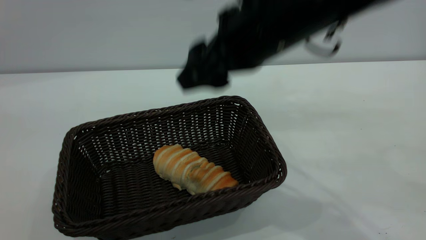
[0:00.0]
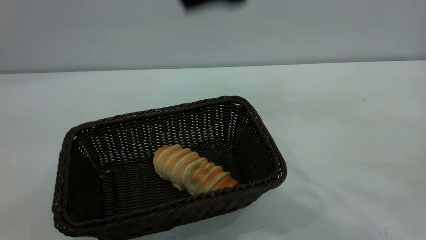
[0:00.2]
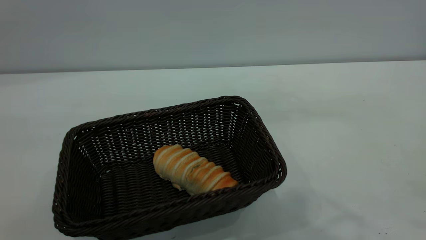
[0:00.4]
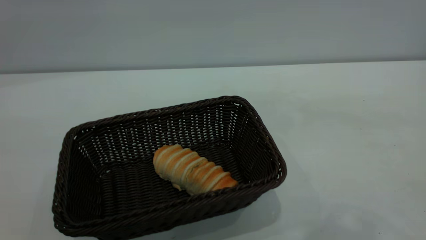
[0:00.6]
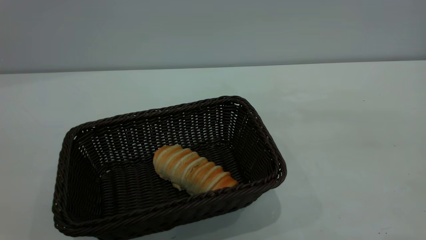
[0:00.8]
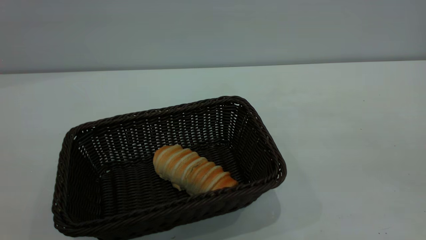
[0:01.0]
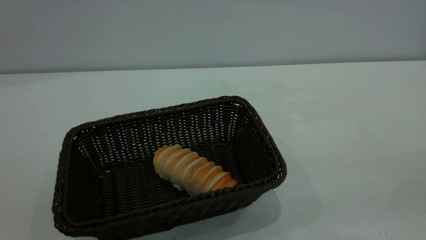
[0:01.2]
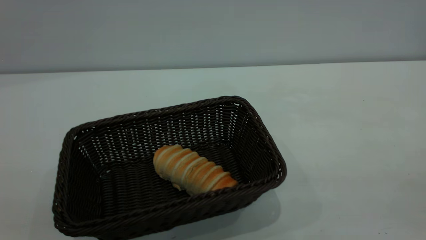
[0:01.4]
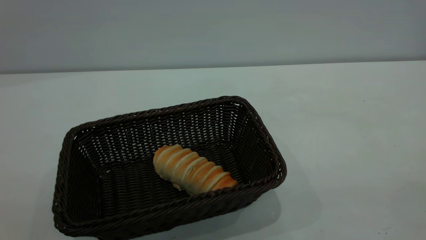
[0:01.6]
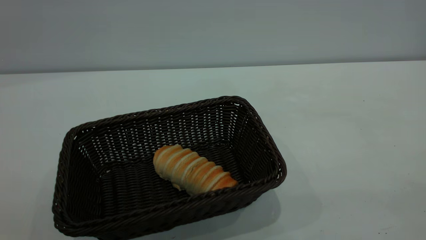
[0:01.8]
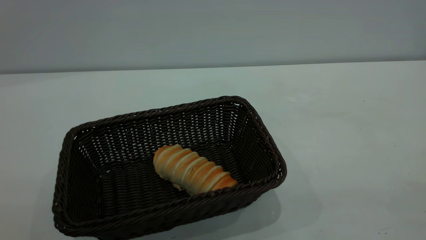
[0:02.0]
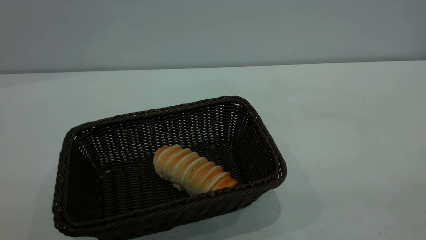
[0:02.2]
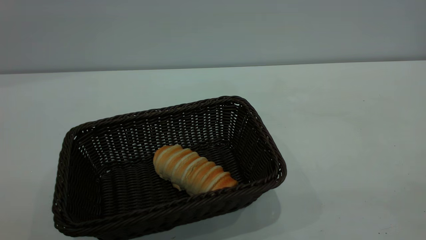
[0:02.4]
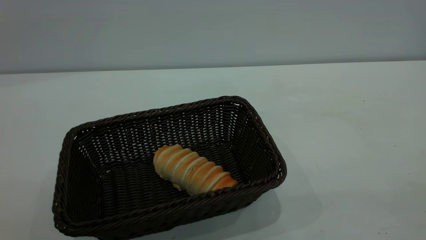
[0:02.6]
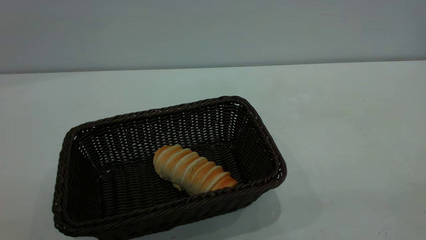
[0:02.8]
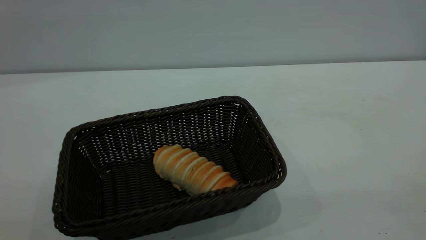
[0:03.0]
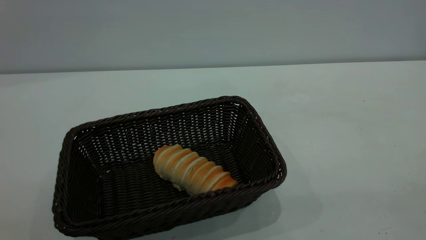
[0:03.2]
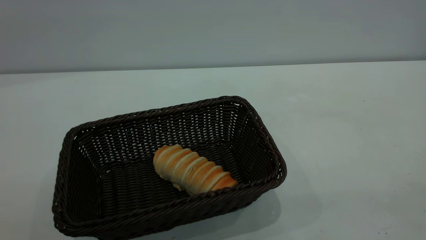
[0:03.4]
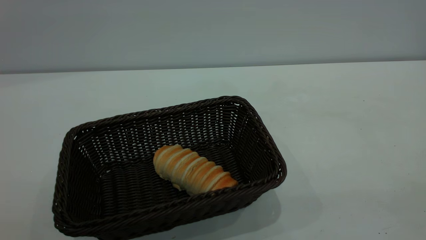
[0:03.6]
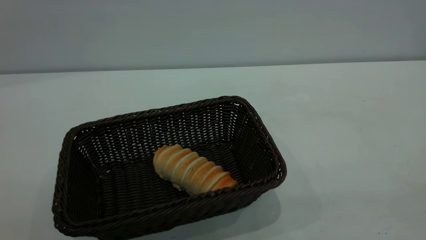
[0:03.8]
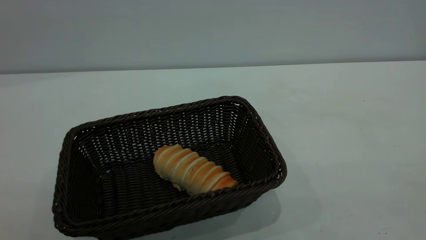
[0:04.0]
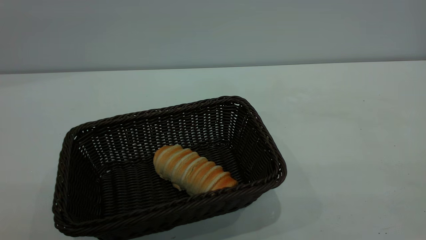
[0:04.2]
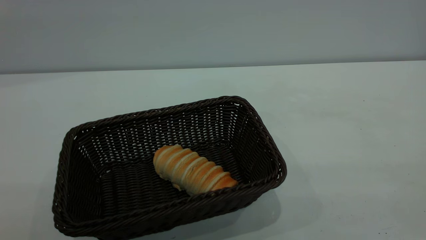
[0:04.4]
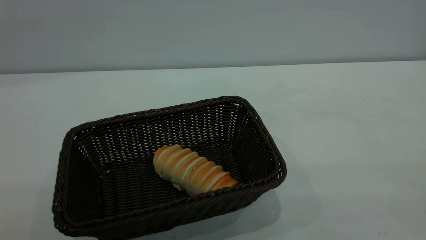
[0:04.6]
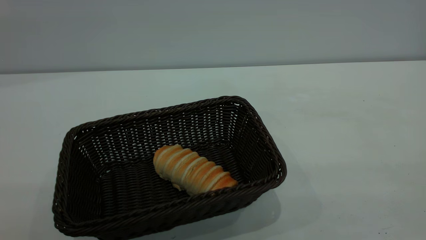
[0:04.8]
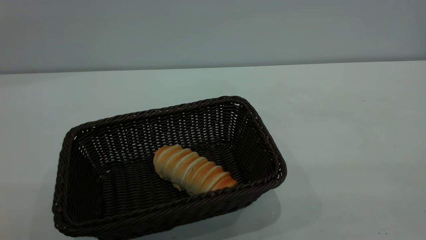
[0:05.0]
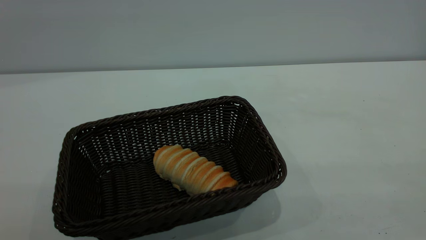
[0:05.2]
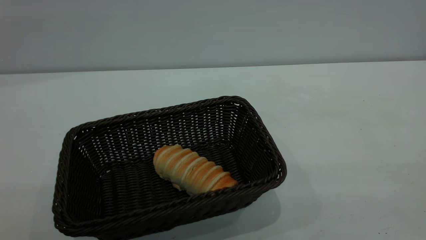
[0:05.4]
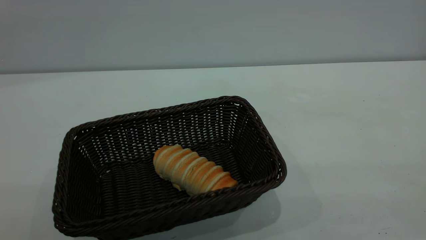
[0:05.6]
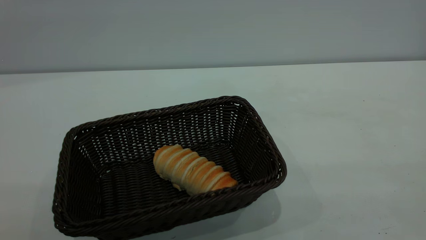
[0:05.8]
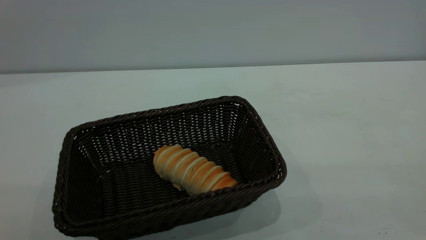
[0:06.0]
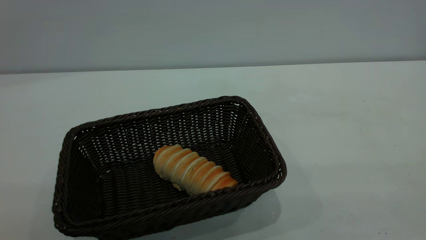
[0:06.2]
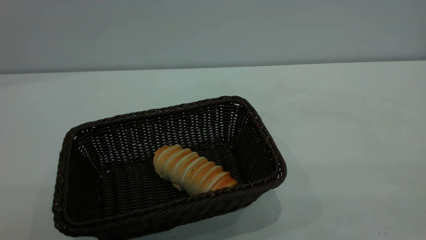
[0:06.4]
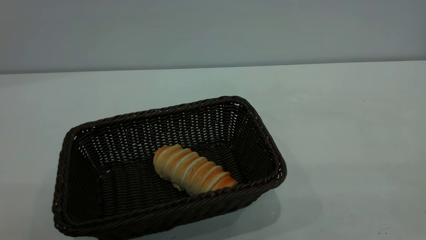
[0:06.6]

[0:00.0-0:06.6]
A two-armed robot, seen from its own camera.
Task of the whole recording: One hand grasps the black basket and places it in the middle of the table, while the other hand picks up the long bread and puts it into the black basket.
0.0 to 1.6 s: The right gripper moves backward and to the right, some 35 cm, while the left gripper is displaced backward and downward by some 10 cm.
5.0 to 6.6 s: The two grippers keep their place.

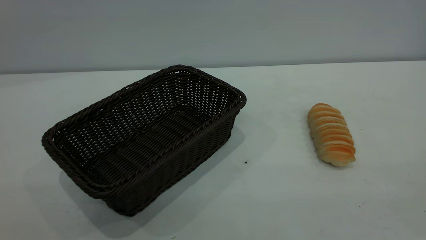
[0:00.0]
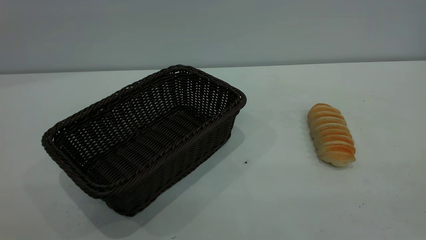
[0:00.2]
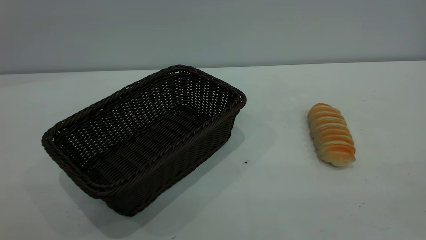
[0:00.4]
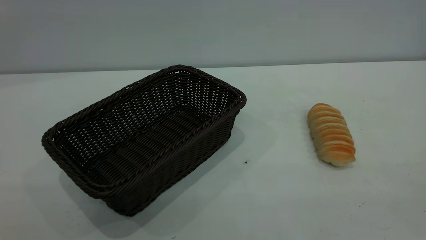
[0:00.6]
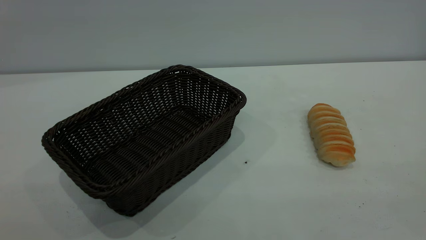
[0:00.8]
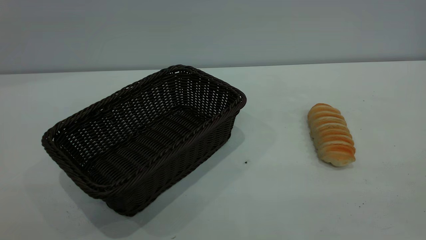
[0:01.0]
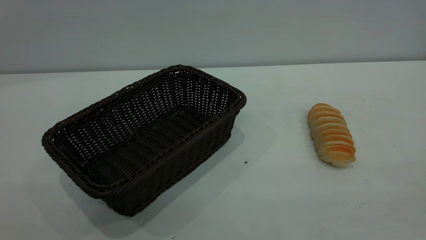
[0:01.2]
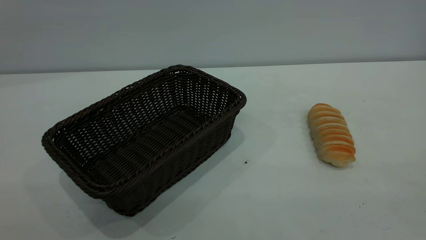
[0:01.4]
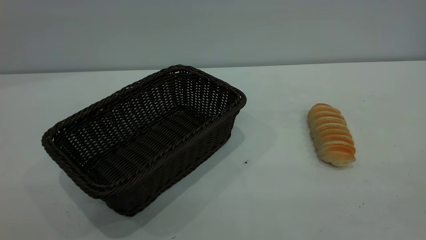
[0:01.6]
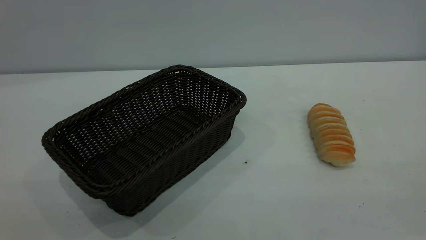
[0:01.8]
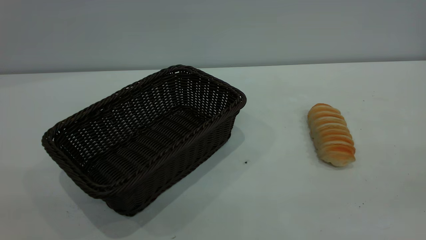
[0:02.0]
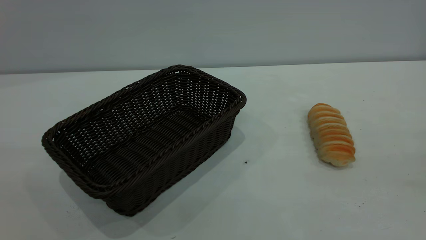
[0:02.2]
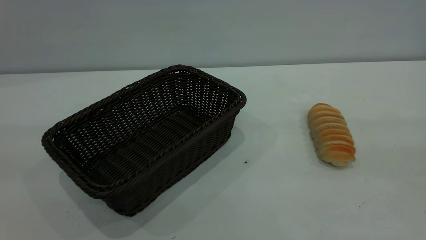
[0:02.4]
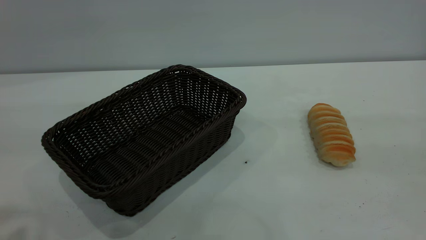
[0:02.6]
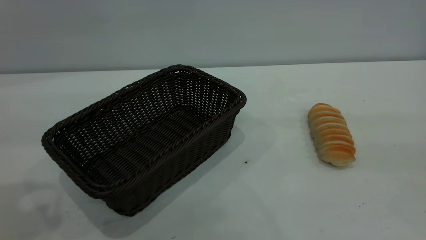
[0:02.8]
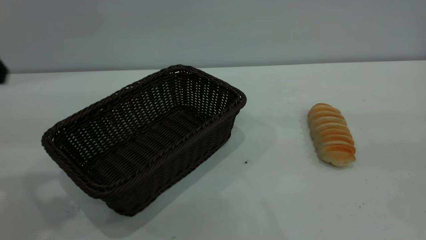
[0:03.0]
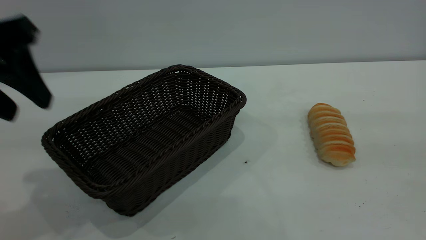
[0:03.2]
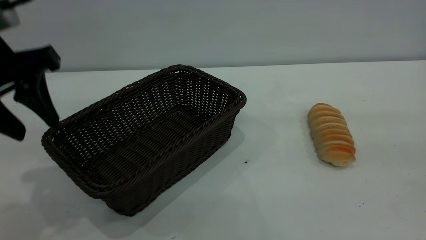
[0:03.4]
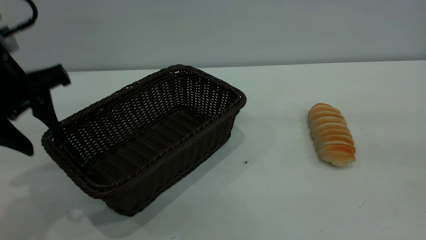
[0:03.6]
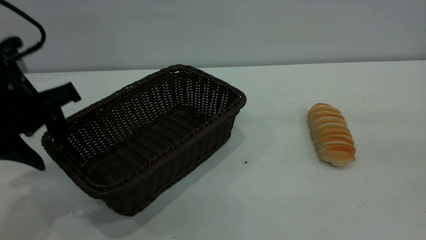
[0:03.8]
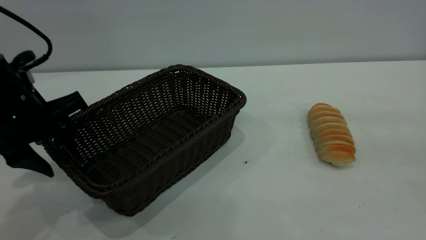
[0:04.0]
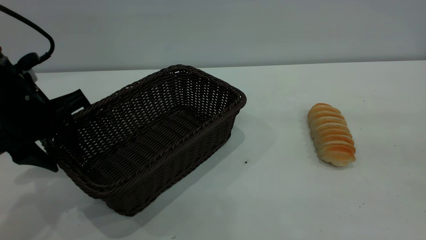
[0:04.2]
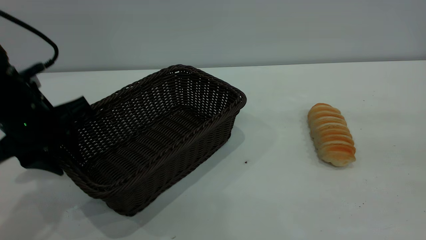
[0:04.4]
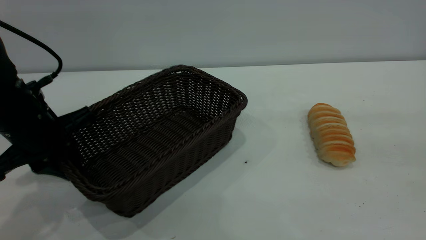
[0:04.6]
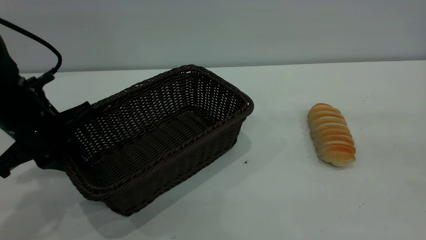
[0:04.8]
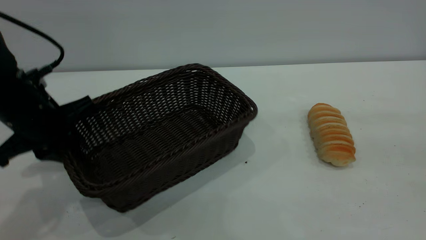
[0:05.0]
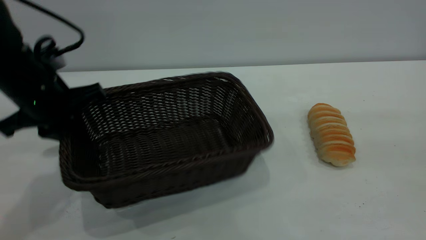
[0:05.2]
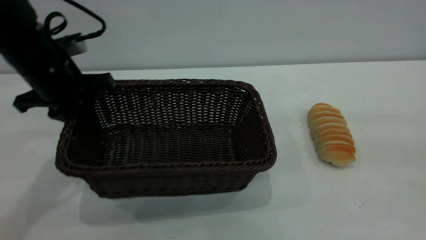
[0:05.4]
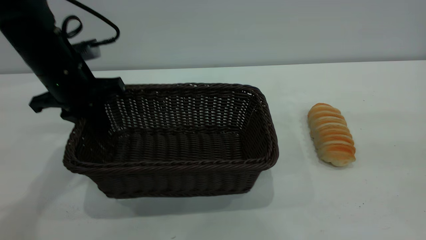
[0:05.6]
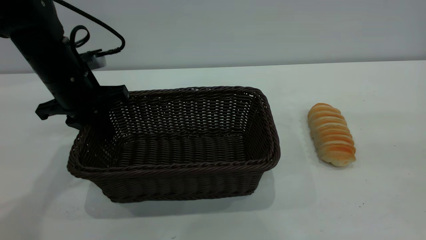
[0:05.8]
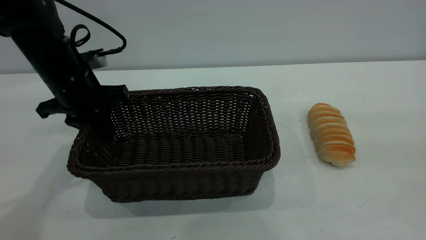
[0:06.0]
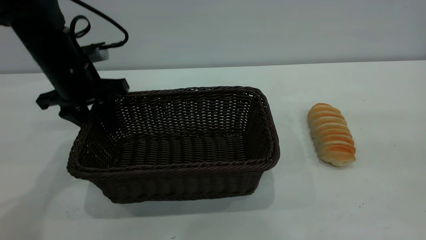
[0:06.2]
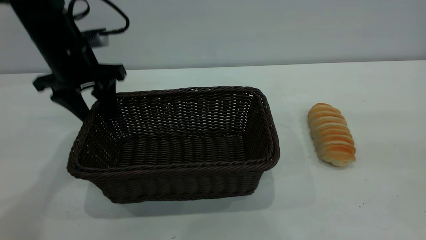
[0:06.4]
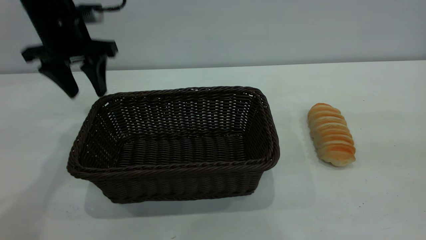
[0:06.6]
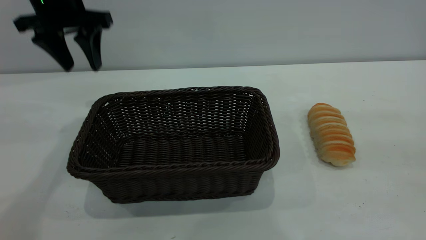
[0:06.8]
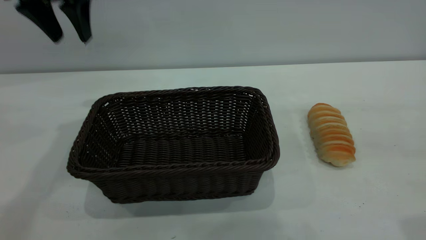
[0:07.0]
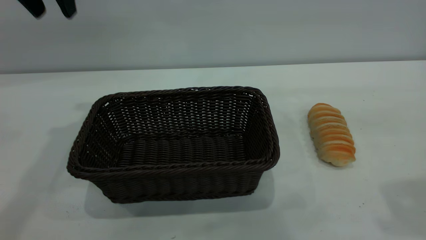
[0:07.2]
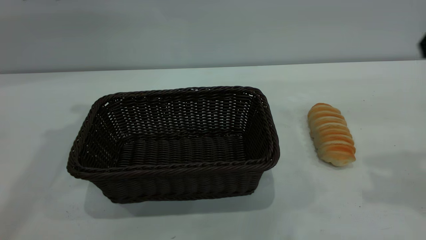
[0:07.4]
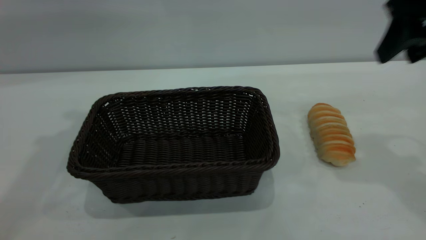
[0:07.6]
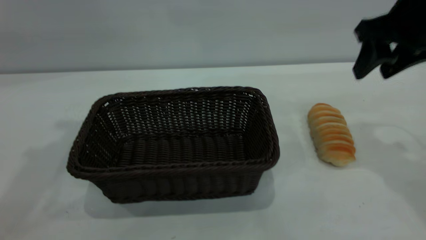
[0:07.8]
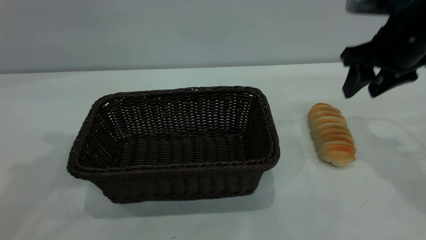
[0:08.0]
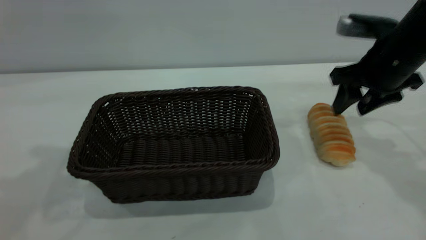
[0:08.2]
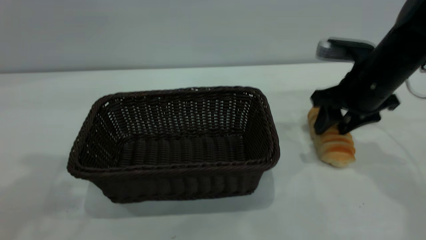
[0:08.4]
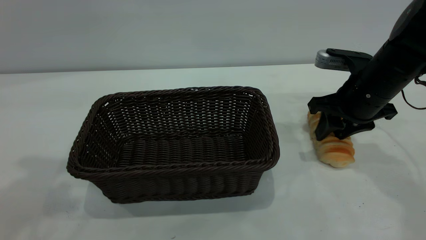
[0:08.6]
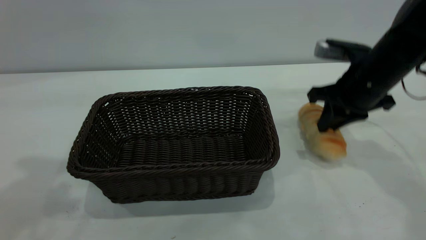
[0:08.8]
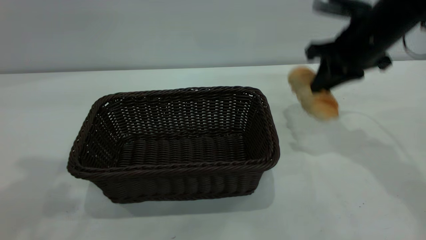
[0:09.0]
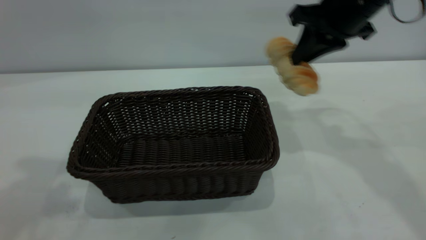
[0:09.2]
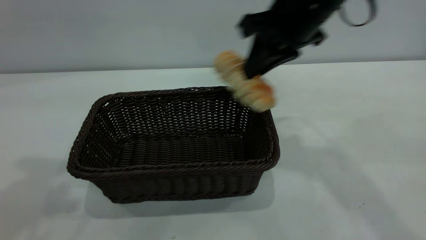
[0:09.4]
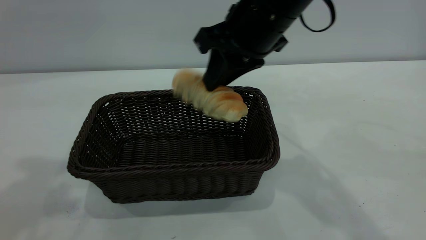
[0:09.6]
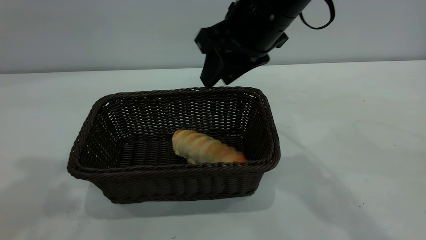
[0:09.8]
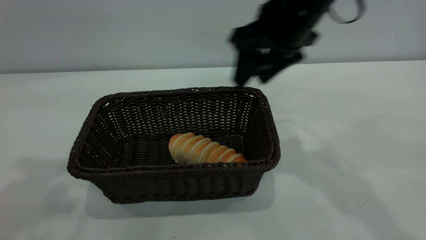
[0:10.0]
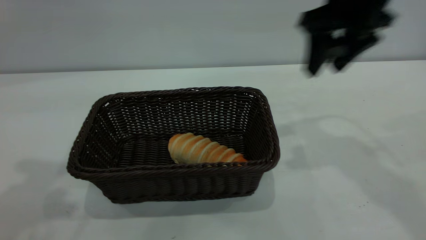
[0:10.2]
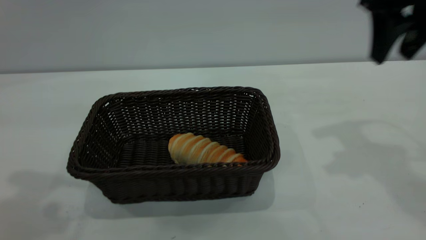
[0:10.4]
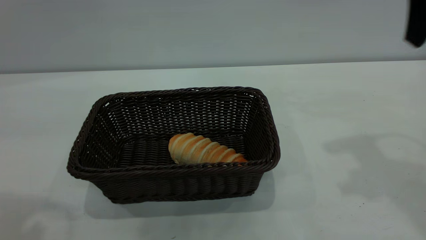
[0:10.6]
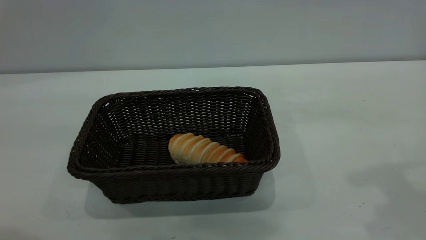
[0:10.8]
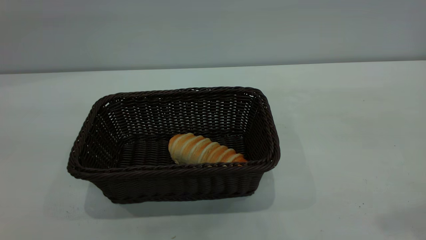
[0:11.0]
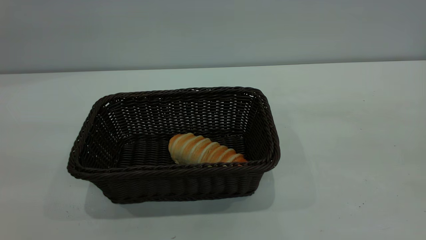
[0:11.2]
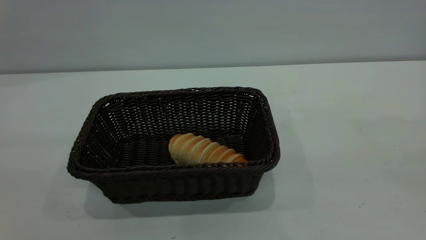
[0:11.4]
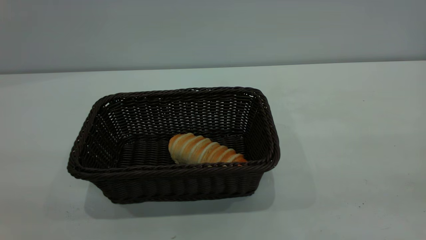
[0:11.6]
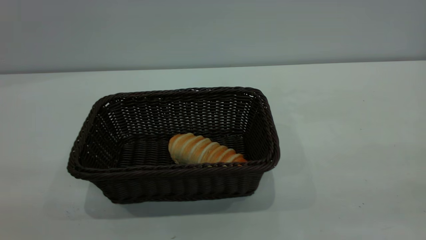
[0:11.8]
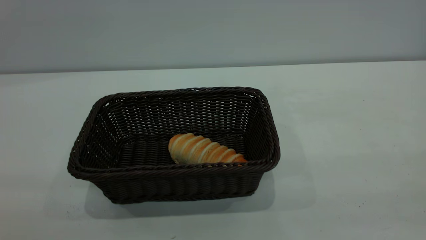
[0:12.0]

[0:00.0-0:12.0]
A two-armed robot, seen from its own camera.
Task of the whole recording: One hand grasps the black basket and places it in the middle of the table, while the other hand picks up the long bread and puts it into the black basket.
Step, 0.0 to 6.6 s: Move the basket to the center of view.
Step, 9.2 to 10.0 s: place the bread into the basket.
0.0 to 1.6 s: Both grippers stay about where they are.
3.0 to 4.4 s: The left gripper goes approximately 15 cm downward, and closes.
4.4 to 6.0 s: The left gripper is displaced forward by approximately 10 cm.
6.0 to 7.6 s: The left gripper travels upward by roughly 25 cm, and opens up. Meanwhile the right gripper shifts about 20 cm forward.
7.6 to 9.0 s: The left gripper shifts approximately 10 cm backward. Meanwhile the right gripper goes approximately 10 cm forward and downward, and closes.
9.0 to 10.4 s: The right gripper goes approximately 10 cm upward and backward, travels to the left and back again, roughly 15 cm each way, and opens, while the left gripper moves approximately 5 cm.
10.4 to 12.0 s: The right gripper heads backward, covering roughly 35 cm.
